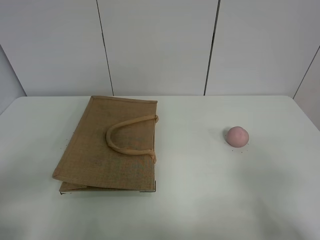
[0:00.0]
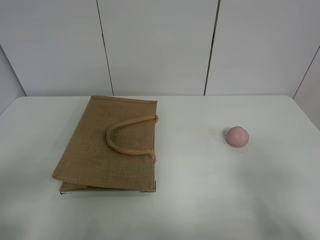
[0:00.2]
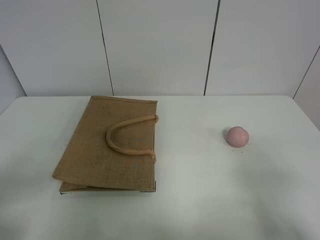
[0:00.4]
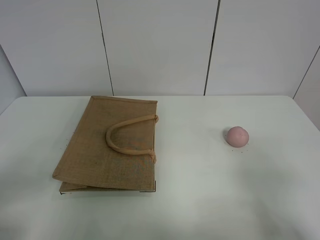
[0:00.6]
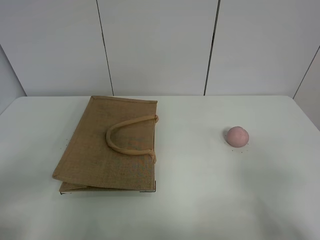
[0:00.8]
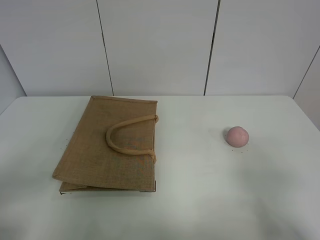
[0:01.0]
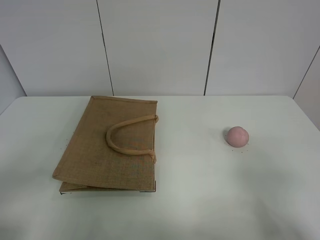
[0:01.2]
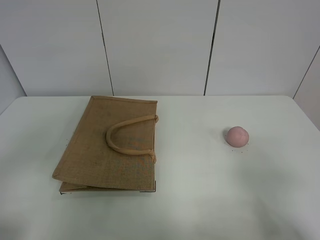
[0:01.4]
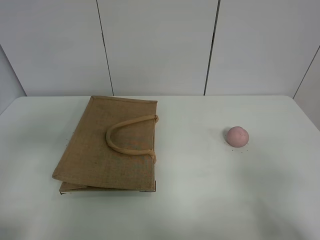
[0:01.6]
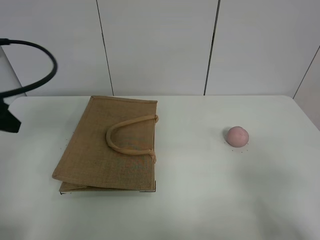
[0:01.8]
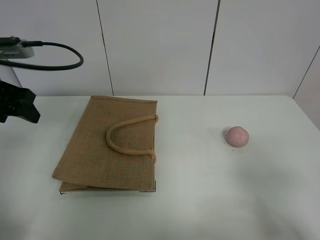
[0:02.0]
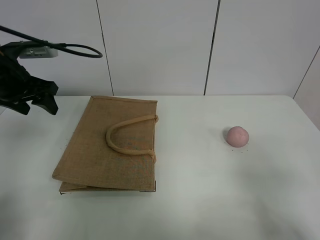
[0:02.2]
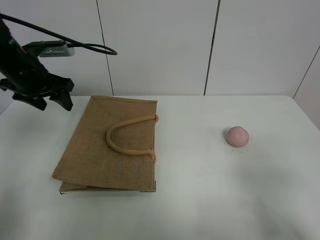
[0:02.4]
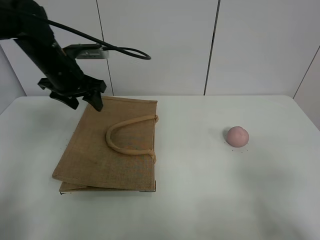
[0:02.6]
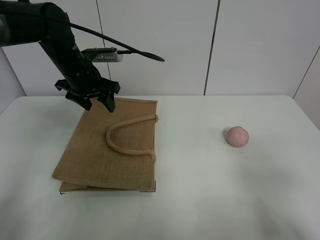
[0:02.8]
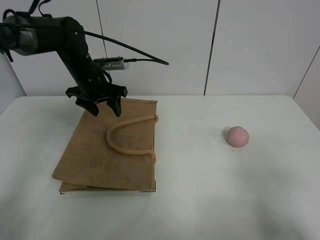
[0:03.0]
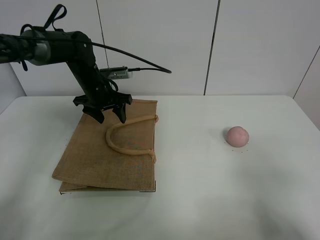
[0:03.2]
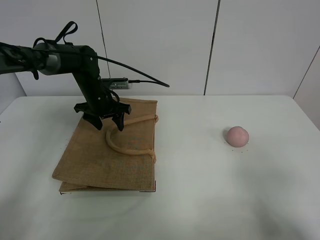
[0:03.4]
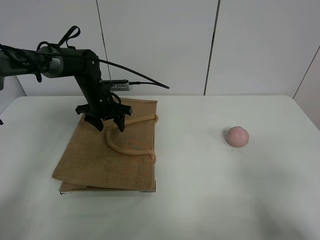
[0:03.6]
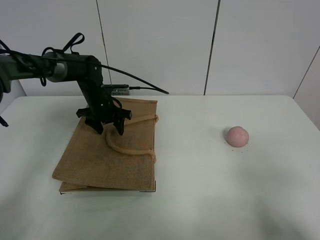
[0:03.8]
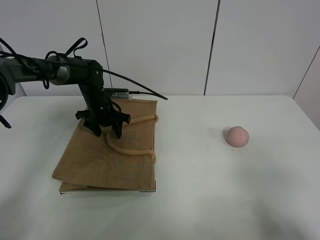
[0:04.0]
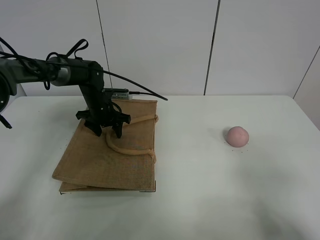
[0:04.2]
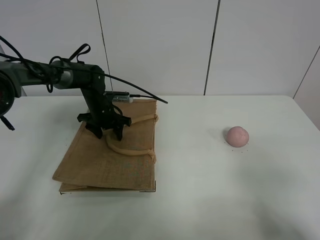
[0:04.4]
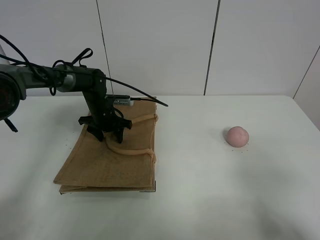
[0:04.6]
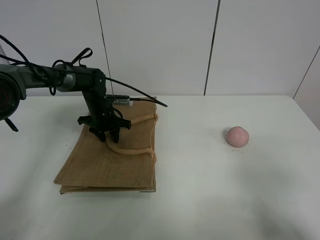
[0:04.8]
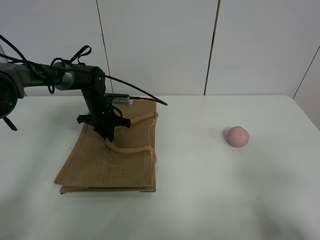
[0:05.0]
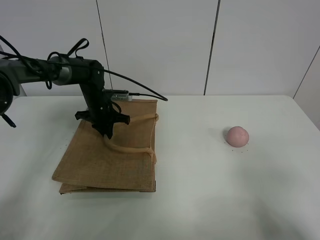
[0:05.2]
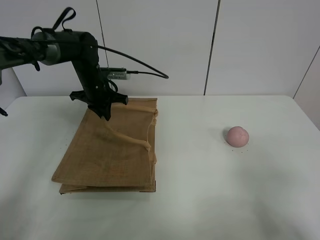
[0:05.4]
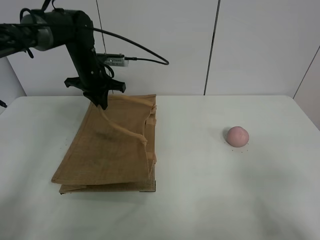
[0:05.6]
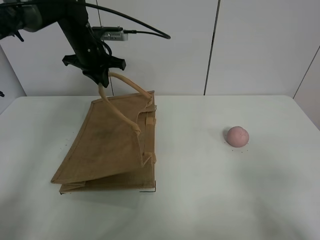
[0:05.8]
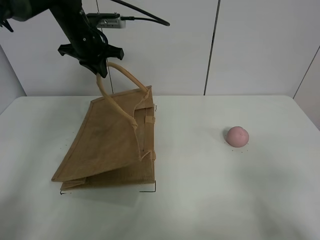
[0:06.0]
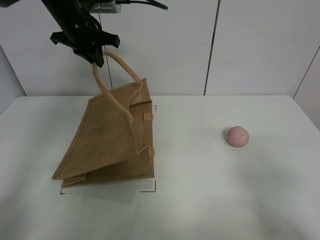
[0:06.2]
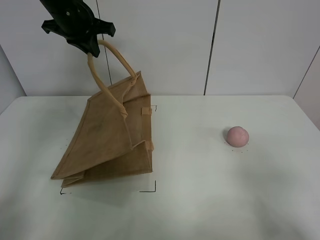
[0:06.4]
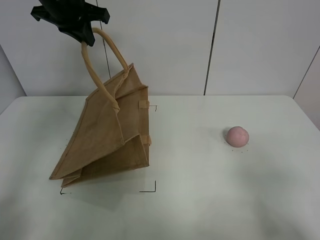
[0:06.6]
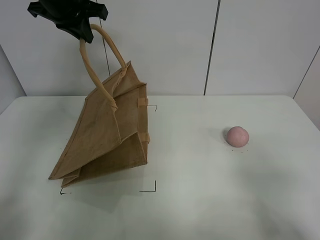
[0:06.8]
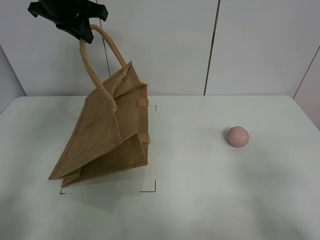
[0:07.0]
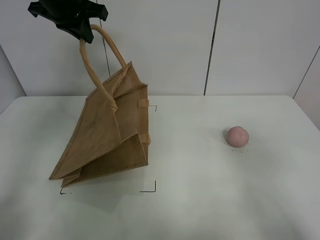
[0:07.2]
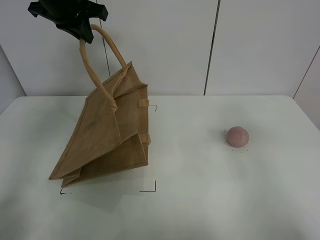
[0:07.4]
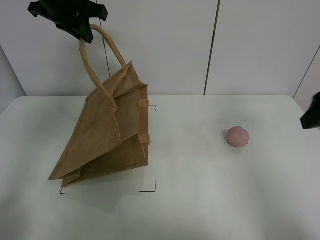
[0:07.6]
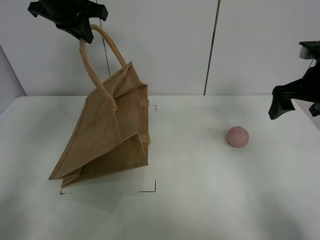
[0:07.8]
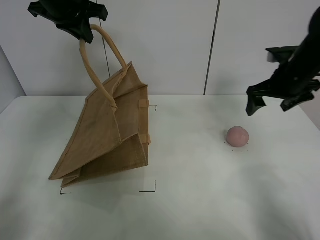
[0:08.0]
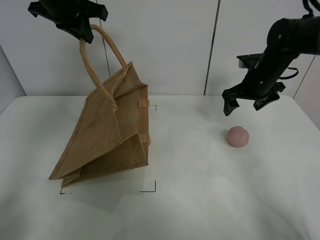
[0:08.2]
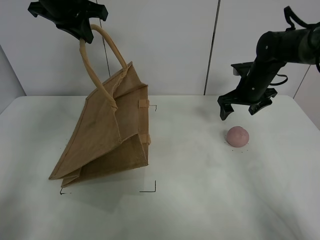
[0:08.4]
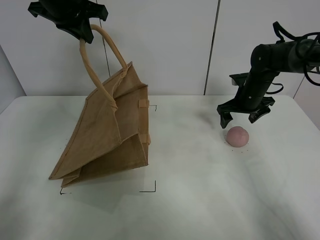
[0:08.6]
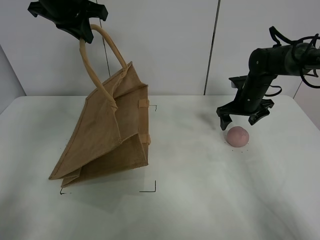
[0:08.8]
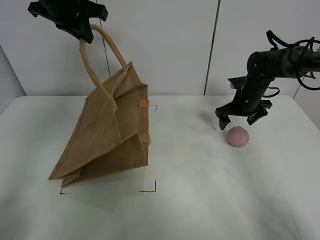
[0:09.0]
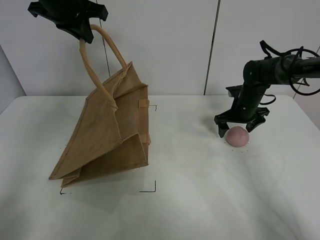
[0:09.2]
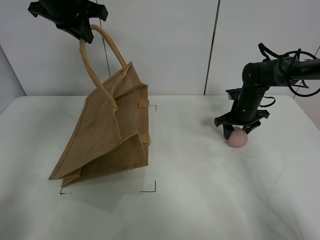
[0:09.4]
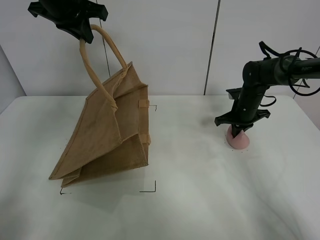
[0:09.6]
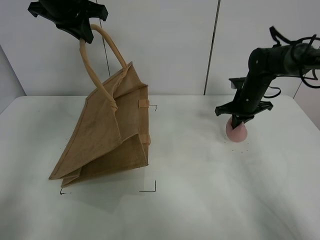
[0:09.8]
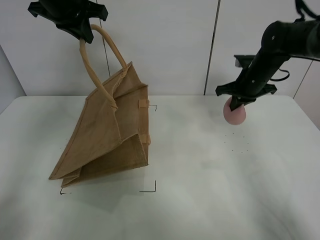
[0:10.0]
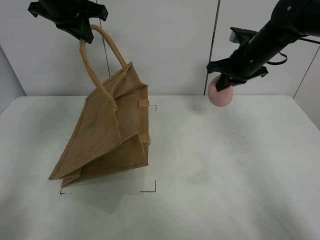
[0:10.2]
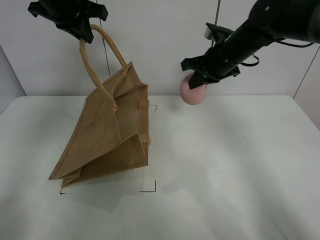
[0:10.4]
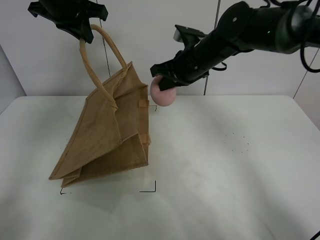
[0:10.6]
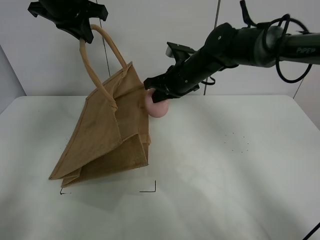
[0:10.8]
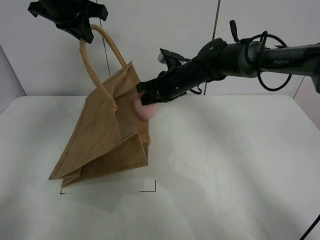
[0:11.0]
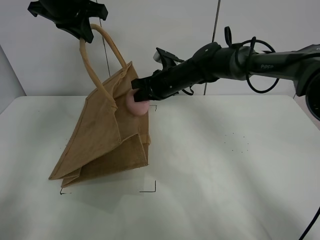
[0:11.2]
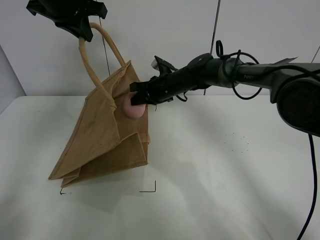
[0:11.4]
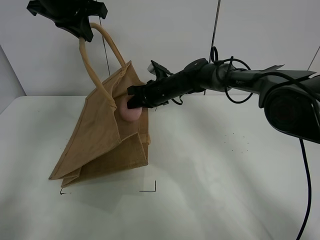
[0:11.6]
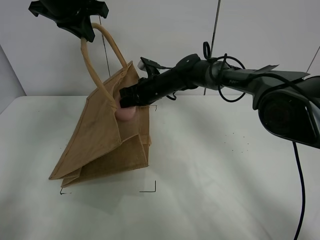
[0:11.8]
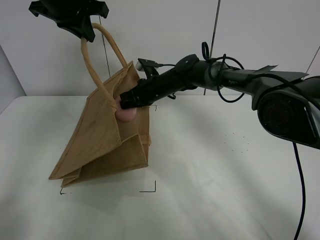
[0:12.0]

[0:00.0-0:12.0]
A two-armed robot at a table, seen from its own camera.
Task of the whole recording: open the brown linen bag and put the peach in the bag.
Step, 0:00.0 to 0:06.8: Lift the handbag with left gripper.
Step, 0:07.0 to 0:09.6: Grasp the peach with right gripper.
0:00.0 to 0:01.6: The left gripper travels forward and upward by about 15 cm.
0:01.6 to 0:03.0: The left gripper is displaced forward and to the right by some 35 cm.
0:03.0 to 0:04.4: The left gripper shifts about 10 cm downward.
0:04.4 to 0:06.0: The left gripper heads upward, covering roughly 20 cm, and closes its fingers.
0:06.0 to 0:07.6: The right gripper travels forward by some 20 cm. The left gripper goes roughly 10 cm upward.
0:07.6 to 0:09.0: The right gripper goes some 30 cm forward and downward.
0:09.0 to 0:10.4: The right gripper shifts some 15 cm upward and to the left, and closes up.
0:10.4 to 0:12.0: The right gripper moves to the left, downward and forward, roughly 20 cm.

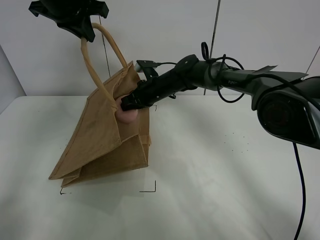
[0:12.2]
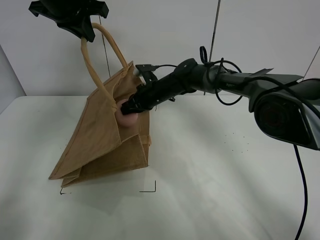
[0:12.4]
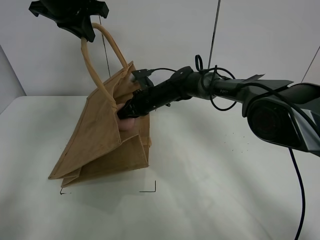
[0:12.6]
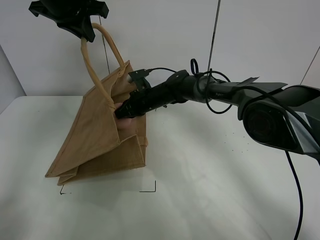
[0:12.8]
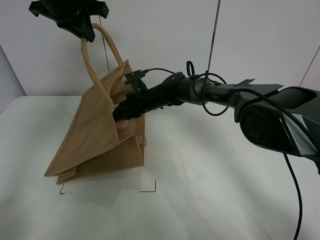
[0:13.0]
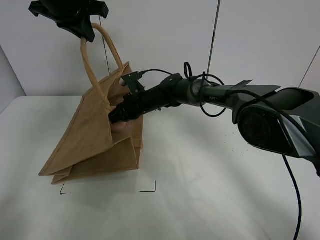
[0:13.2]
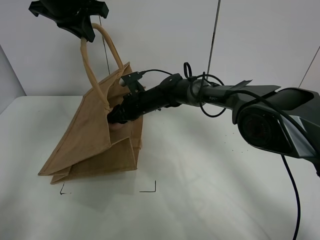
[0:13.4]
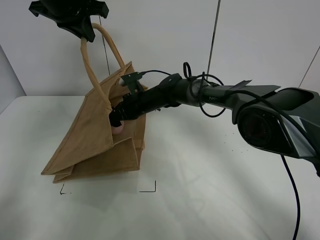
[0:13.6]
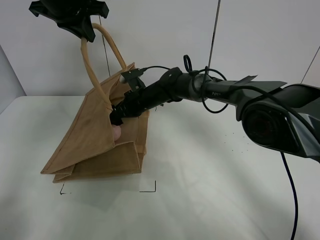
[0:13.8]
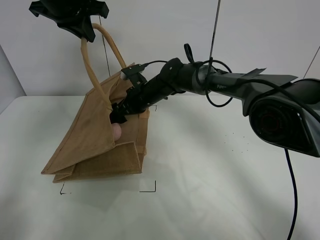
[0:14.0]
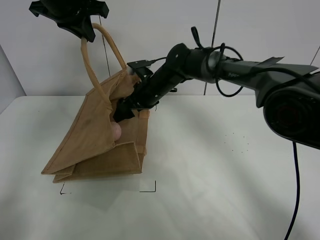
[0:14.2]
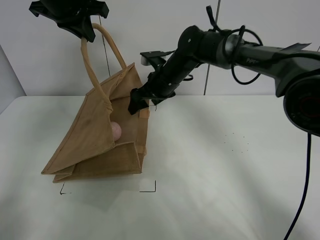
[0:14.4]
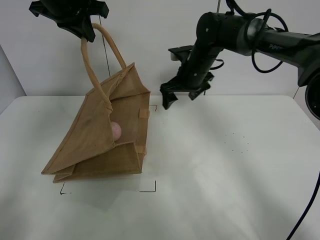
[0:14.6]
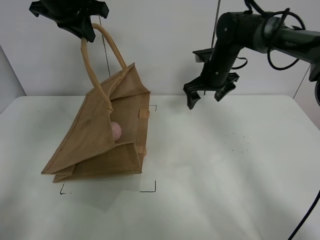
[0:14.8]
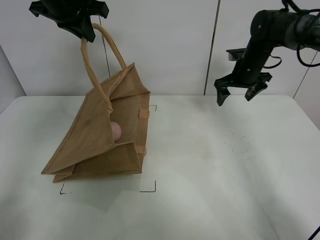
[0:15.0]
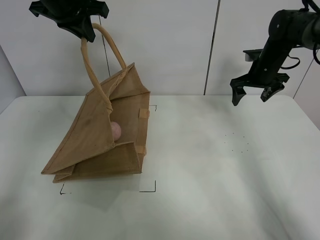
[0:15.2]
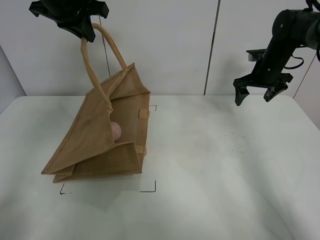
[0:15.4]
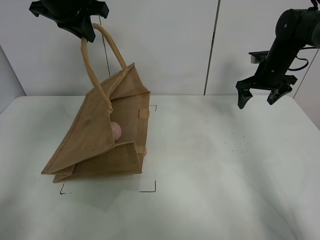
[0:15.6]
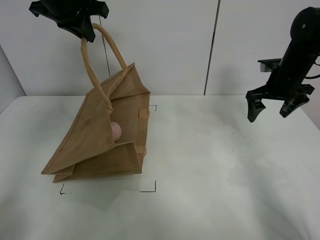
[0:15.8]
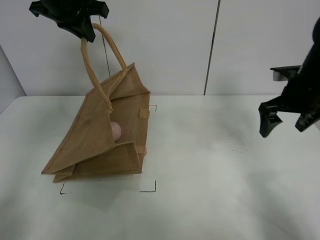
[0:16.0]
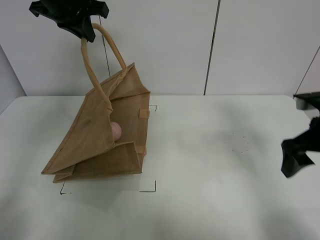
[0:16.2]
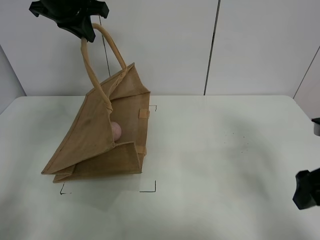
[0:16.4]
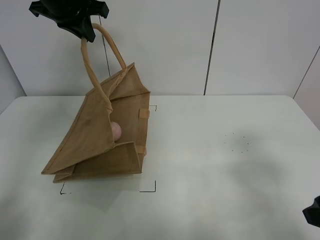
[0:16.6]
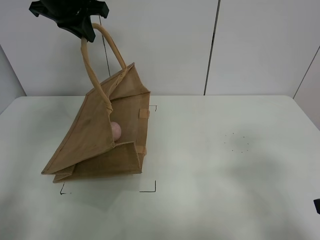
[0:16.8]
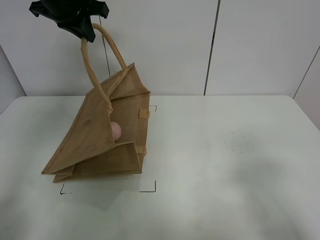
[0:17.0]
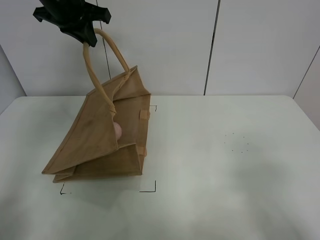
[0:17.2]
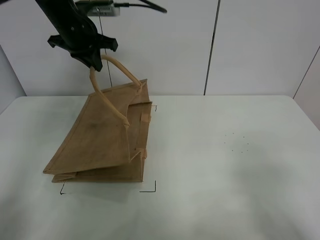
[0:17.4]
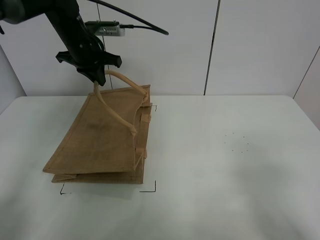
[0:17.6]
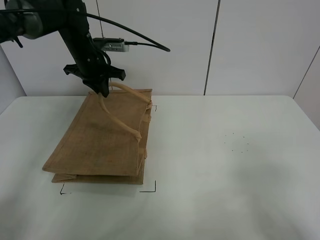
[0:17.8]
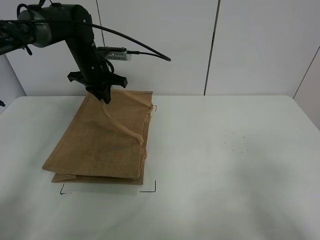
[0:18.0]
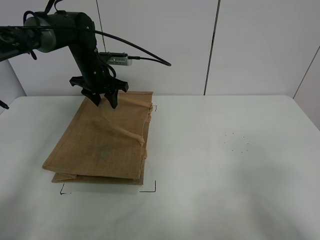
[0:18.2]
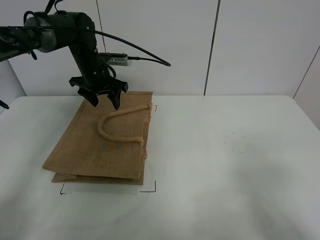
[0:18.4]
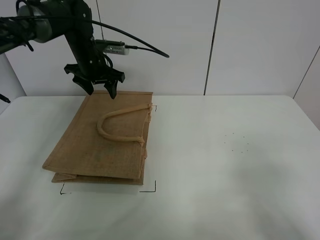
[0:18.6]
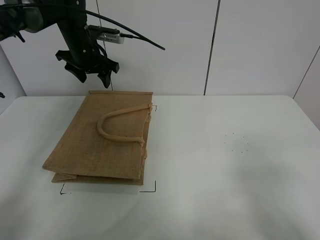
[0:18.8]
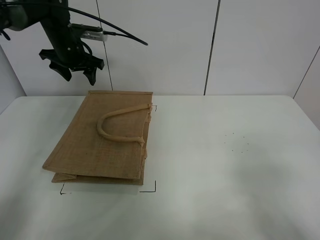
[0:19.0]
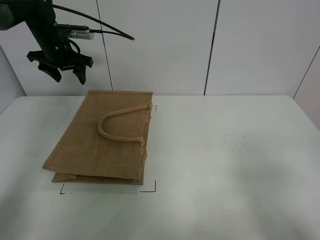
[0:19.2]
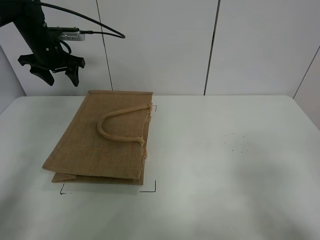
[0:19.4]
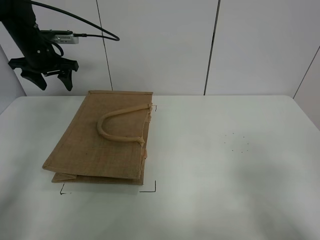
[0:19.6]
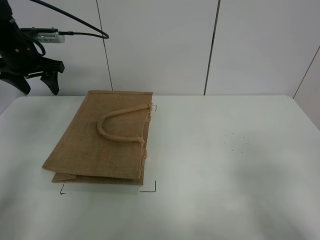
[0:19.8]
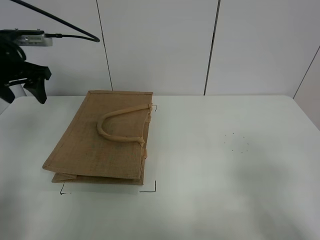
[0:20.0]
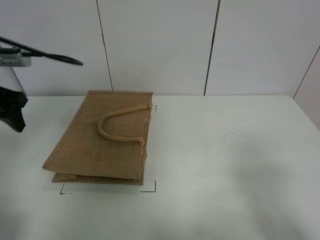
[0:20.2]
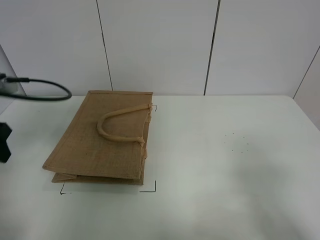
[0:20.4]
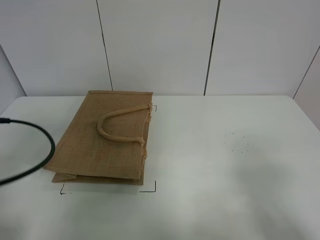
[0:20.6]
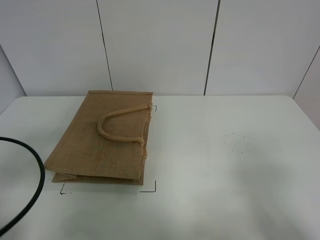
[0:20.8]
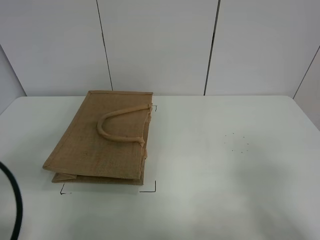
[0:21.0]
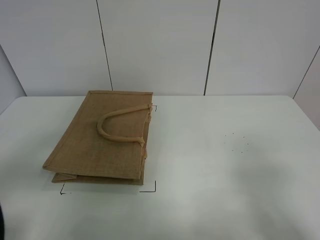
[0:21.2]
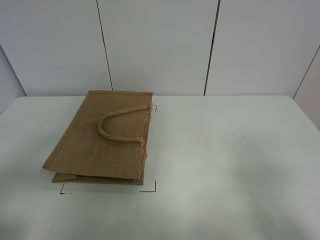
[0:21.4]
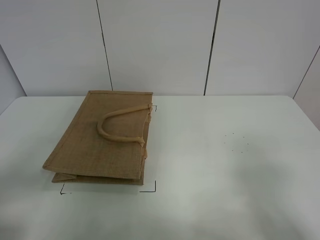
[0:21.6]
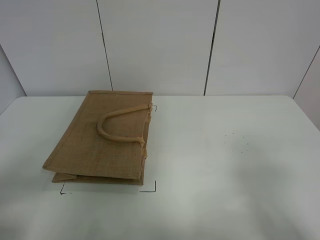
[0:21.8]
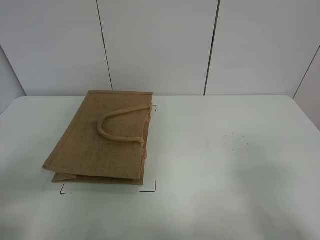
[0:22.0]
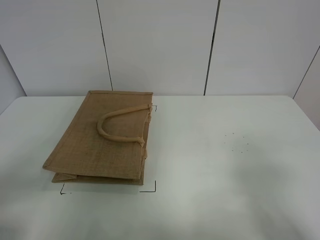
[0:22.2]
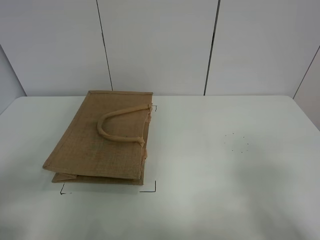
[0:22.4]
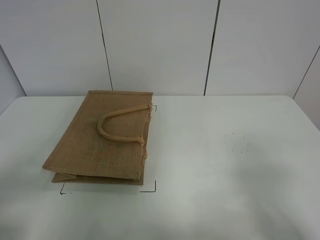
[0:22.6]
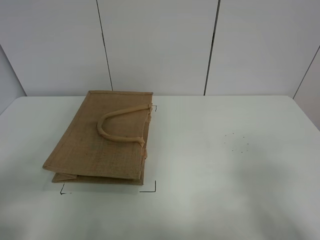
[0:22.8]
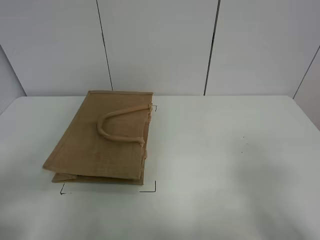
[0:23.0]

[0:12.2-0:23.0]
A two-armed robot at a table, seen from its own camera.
Task of the whole recording: open the brown linen bag and put the peach in the bag.
Step, 0:12.2 to 0:14.4: Place the peach in the handbag with right gripper.
Step, 0:14.6 to 0:18.8: Put down the handbag with left grippe.
0:12.2 to 0:13.8: The right gripper opens.
0:13.8 to 0:15.2: The right gripper travels to the right by roughly 30 cm.
0:15.2 to 0:16.8: The right gripper shifts some 40 cm backward.
0:16.8 to 0:18.4: The right gripper goes approximately 5 cm backward; the left gripper shifts approximately 20 cm downward, and opens its fingers.
0:18.4 to 0:20.0: The left gripper moves to the left, backward and upward, approximately 20 cm.
0:20.0 to 0:21.4: The left gripper goes some 30 cm backward.
